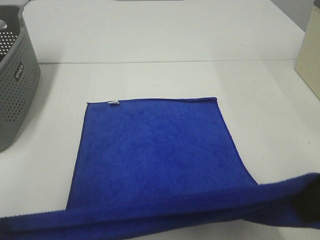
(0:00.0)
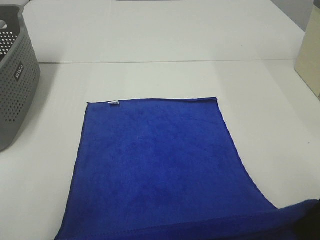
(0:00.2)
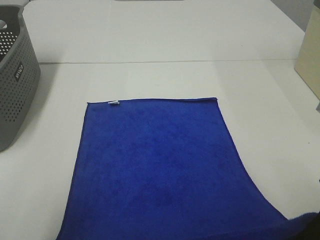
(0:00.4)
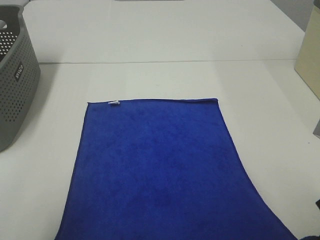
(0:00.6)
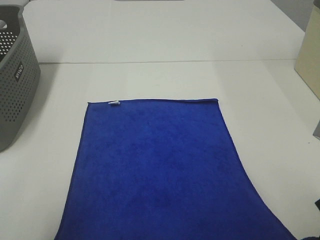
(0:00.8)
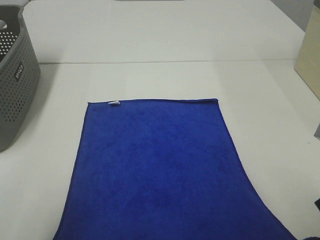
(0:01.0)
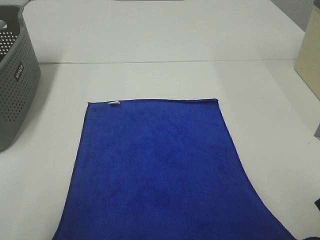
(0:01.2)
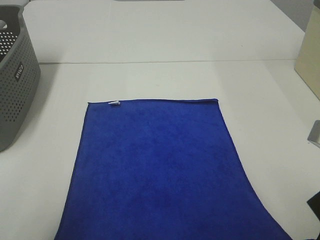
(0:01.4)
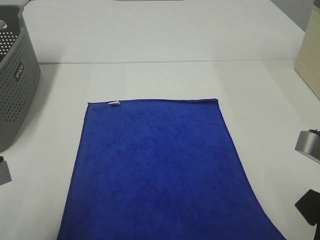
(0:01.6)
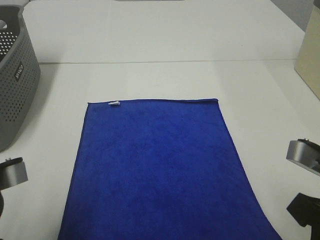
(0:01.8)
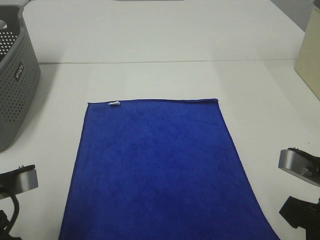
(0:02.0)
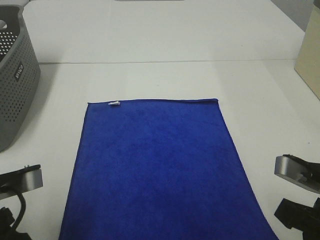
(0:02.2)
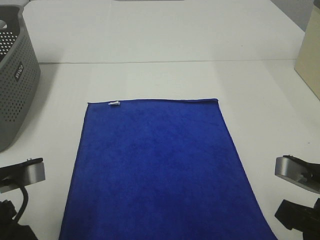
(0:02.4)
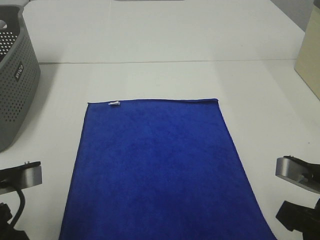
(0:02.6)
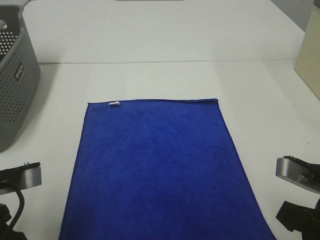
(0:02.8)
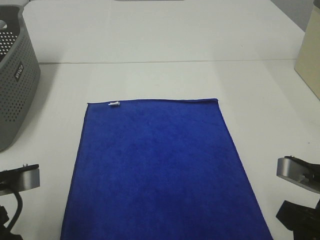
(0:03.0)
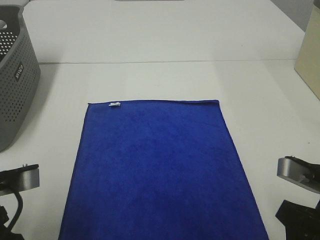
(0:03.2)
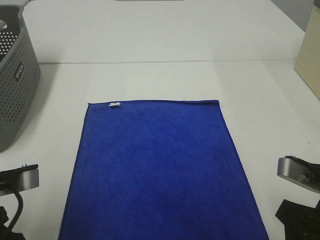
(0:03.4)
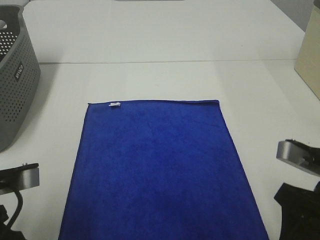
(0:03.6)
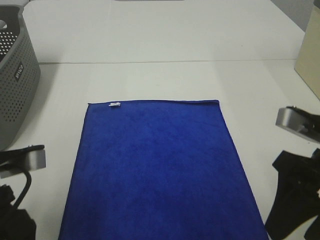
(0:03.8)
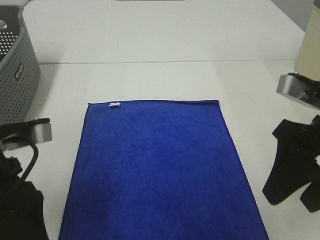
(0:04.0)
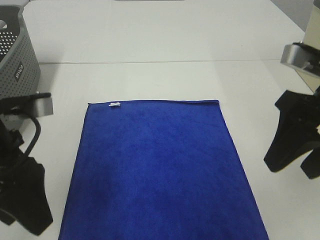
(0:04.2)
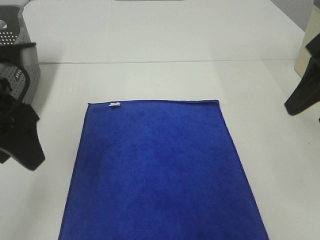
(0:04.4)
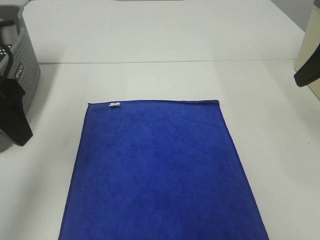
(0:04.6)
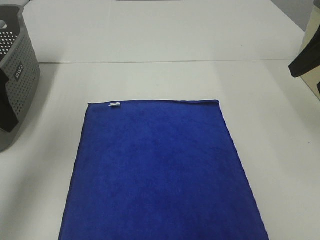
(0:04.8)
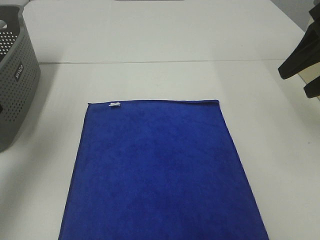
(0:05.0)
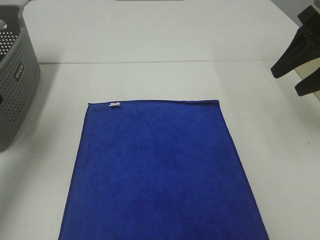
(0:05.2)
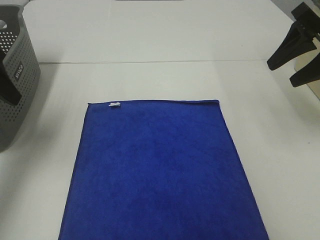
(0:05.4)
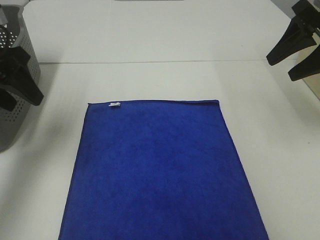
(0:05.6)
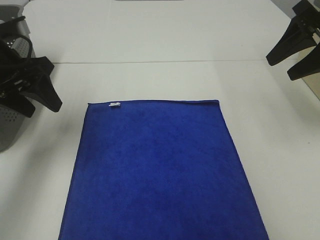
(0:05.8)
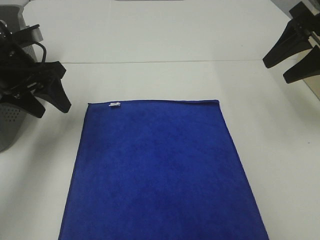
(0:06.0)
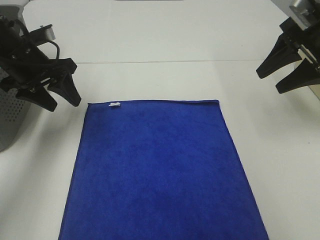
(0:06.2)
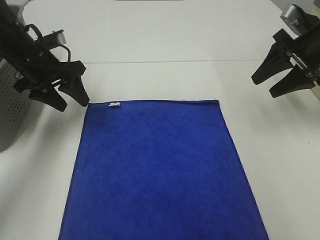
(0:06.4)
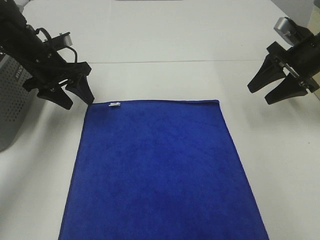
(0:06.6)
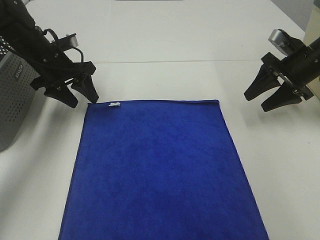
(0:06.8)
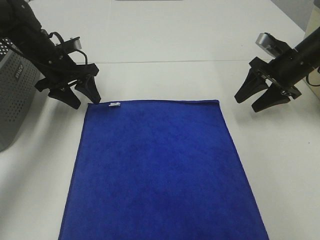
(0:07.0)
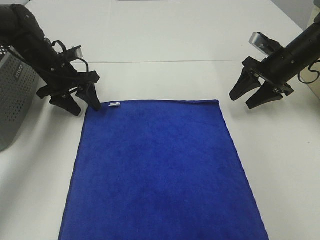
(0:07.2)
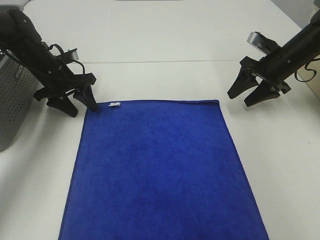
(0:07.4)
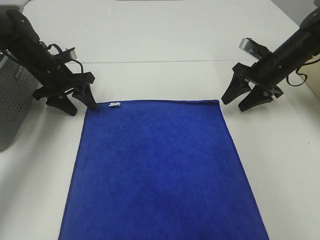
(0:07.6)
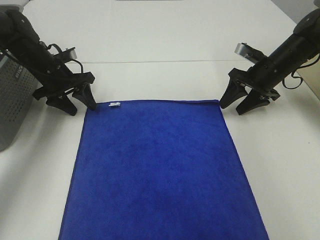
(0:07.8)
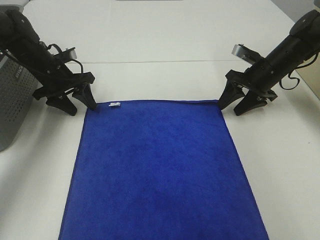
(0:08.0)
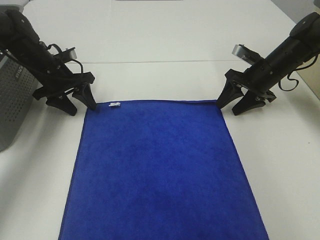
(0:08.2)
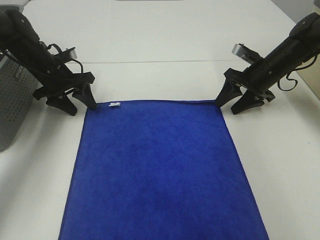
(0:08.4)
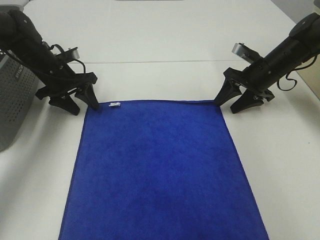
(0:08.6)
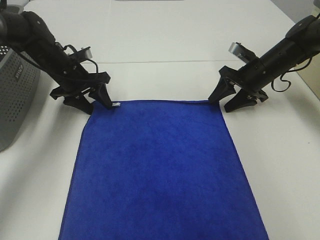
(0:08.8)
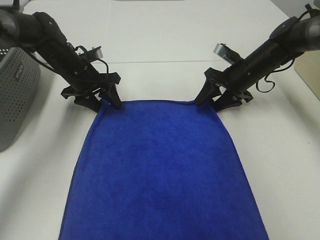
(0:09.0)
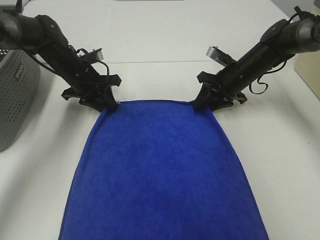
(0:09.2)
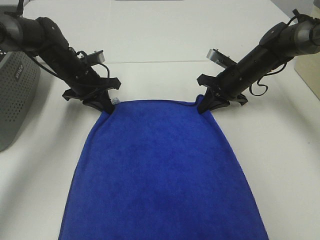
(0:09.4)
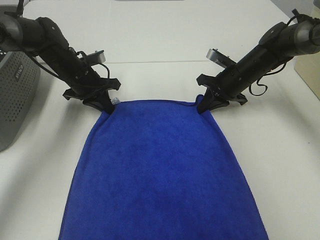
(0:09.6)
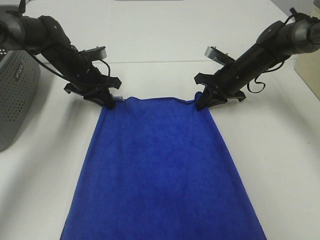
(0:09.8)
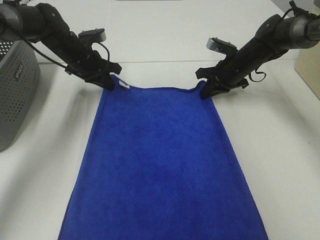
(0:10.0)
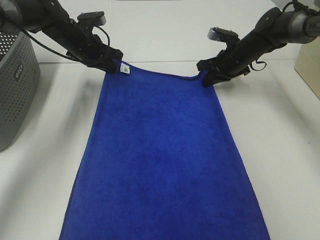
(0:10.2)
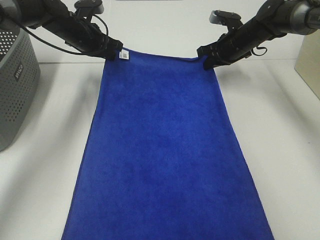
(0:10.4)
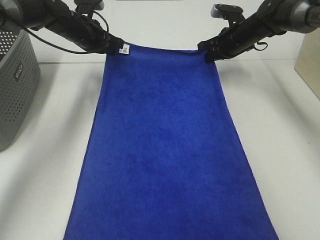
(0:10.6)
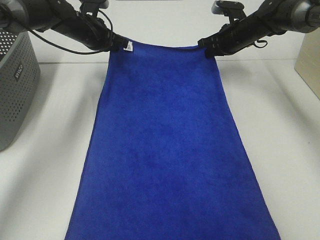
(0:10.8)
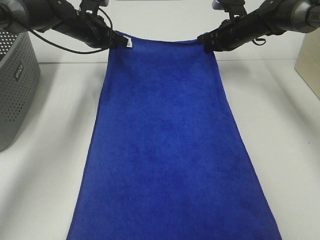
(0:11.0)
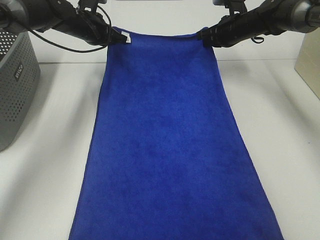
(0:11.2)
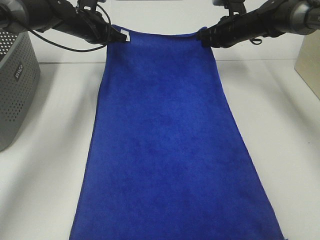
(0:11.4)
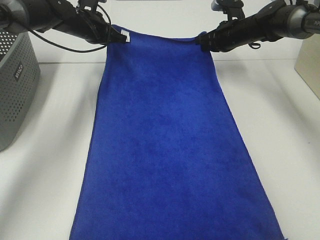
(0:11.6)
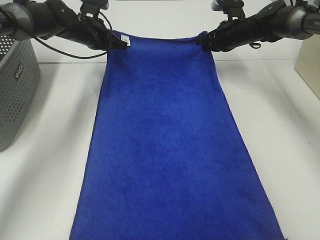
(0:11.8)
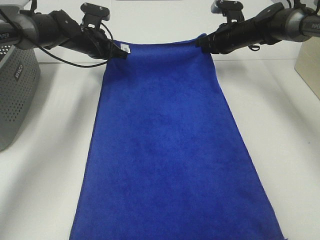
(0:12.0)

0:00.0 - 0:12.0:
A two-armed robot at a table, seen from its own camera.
Task of the whole recording: Remove the towel and place it.
Step, 0:00.0 - 0:06.0: Left hand:adjust the blue towel.
Step, 0:00.0 - 0:06.0: Right hand:adjust the blue towel.
0:00.0 - 0:01.6: The two grippers go roughly 5 cm downward.
0:01.6 - 0:03.0: The left gripper opens, while the right gripper opens up.
0:03.0 - 0:04.4: The left gripper moves forward and upward, about 15 cm, while the right gripper heads upward and forward, covering approximately 15 cm.
0:04.4 - 0:06.0: The right gripper travels forward by approximately 10 cm. The left gripper goes some 15 cm forward and downward.
0:06.0 - 0:07.6: The right gripper shifts roughly 15 cm downward and forward. Meanwhile the left gripper goes approximately 15 cm forward and downward.
0:07.6 - 0:09.0: The right gripper heads to the left, covering some 5 cm, while the left gripper heads to the right, covering some 5 cm.
0:09.0 - 0:10.4: Both grippers move forward and upward, about 10 cm. The right gripper closes up. The left gripper closes its fingers.
0:10.4 - 0:12.0: The grippers move only a little.

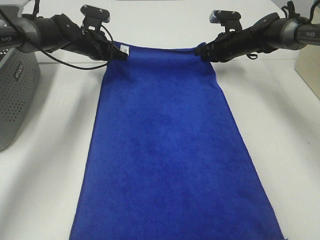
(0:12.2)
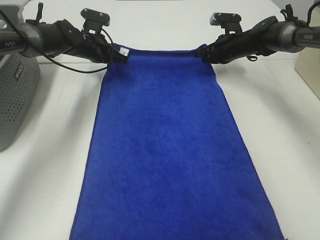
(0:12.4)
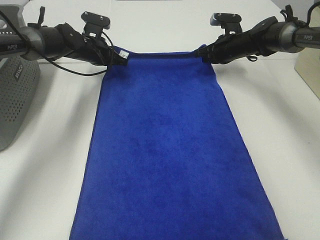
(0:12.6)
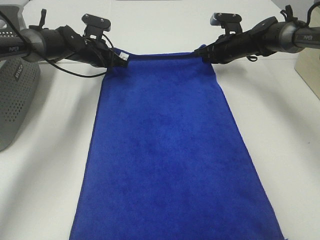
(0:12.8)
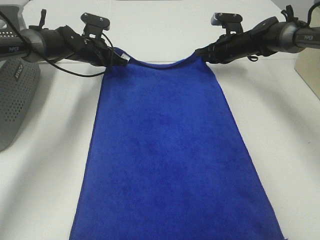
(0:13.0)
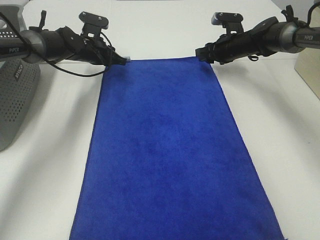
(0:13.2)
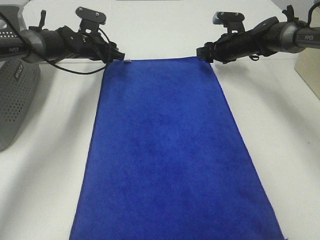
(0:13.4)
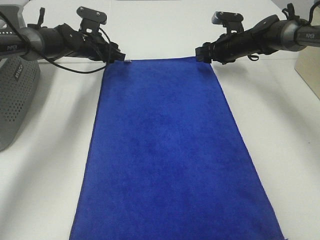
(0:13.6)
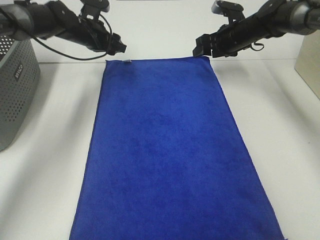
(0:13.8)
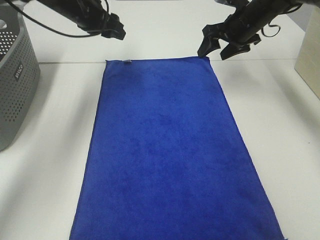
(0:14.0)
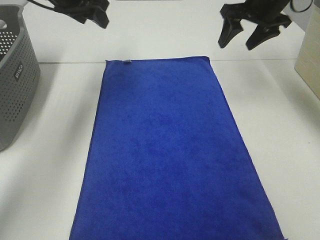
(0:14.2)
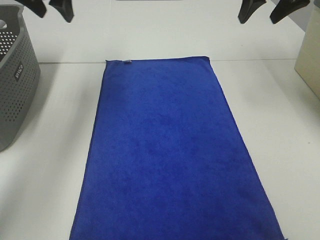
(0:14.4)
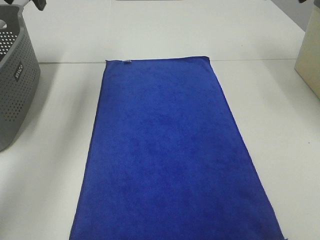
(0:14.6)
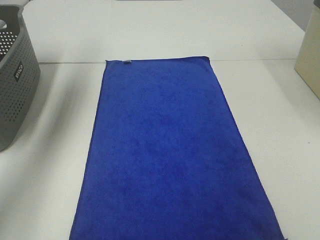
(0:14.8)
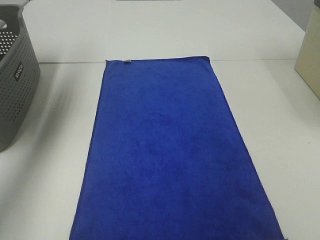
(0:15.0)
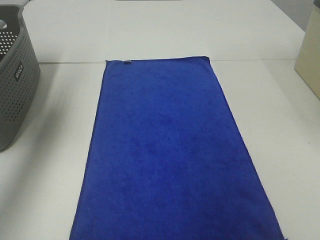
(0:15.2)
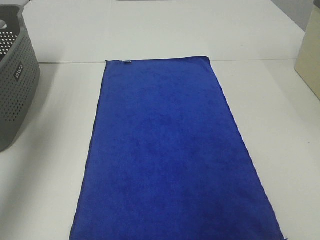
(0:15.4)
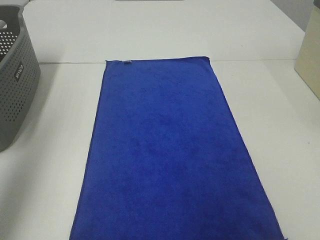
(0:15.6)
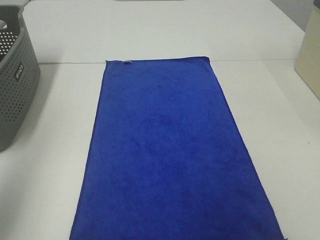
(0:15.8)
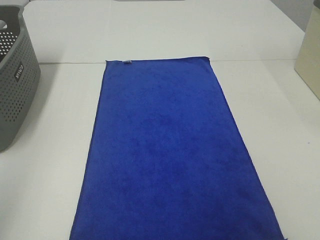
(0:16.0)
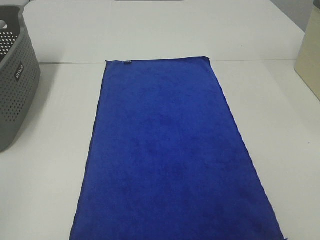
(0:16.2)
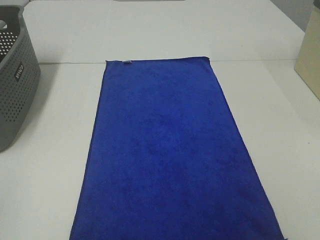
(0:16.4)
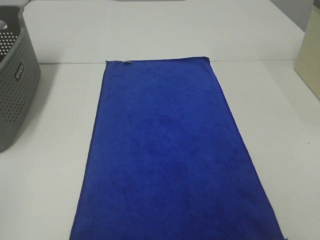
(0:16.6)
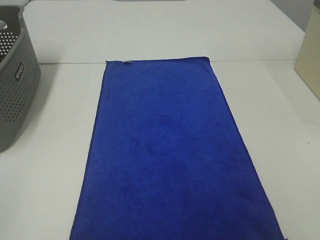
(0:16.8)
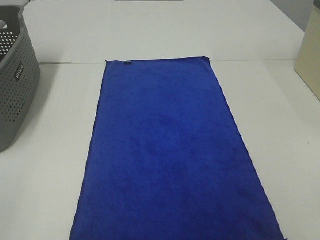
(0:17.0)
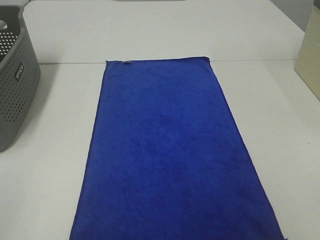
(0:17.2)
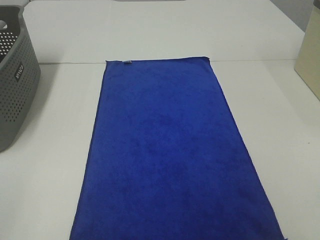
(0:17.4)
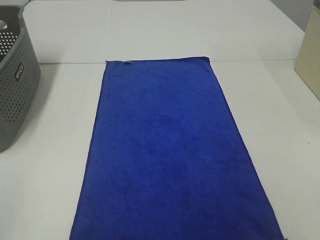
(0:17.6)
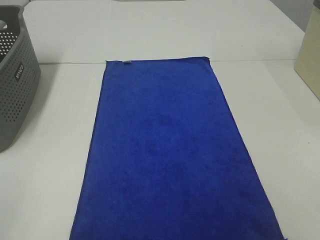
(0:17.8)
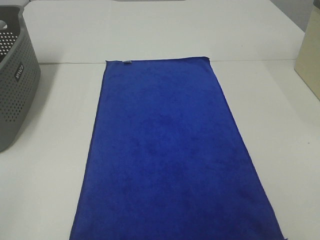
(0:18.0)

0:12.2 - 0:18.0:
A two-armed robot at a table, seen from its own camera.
Task of the whole recording: Remove the towel and place it.
0:12.2 - 0:13.6: The right gripper opens; the left gripper opens its fingers.
0:13.6 - 0:15.0: The right gripper is displaced upward and backward by about 35 cm, while the left gripper goes some 35 cm upward, backward and to the left.
0:15.0 - 0:16.6: The left gripper goes roughly 40 cm backward.

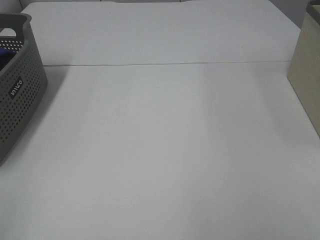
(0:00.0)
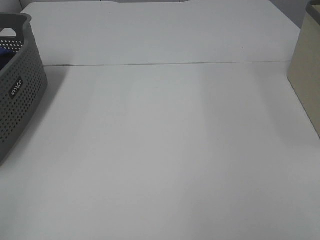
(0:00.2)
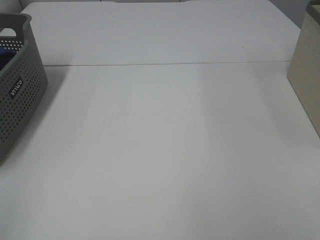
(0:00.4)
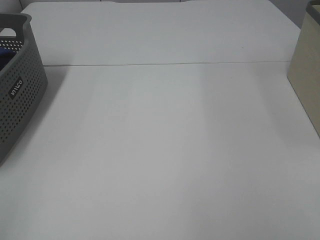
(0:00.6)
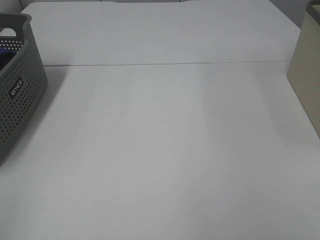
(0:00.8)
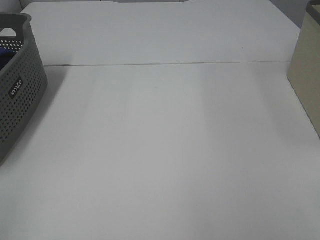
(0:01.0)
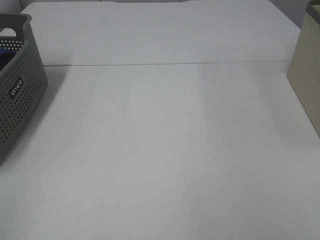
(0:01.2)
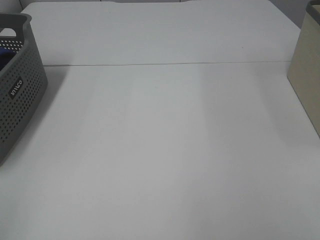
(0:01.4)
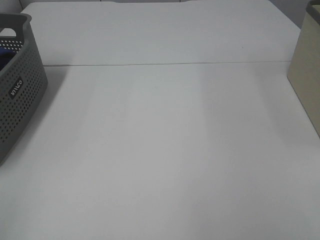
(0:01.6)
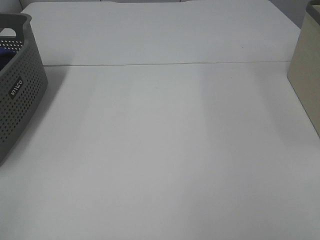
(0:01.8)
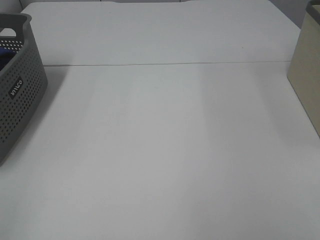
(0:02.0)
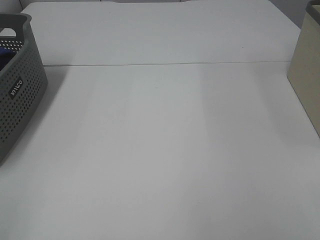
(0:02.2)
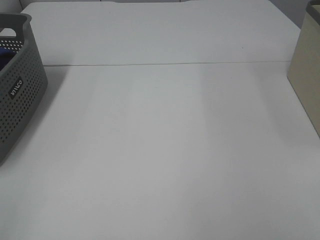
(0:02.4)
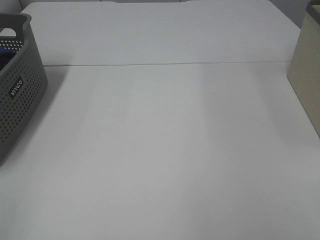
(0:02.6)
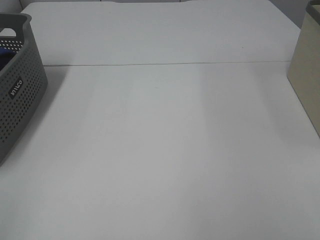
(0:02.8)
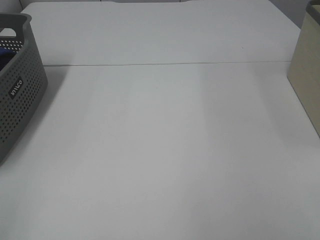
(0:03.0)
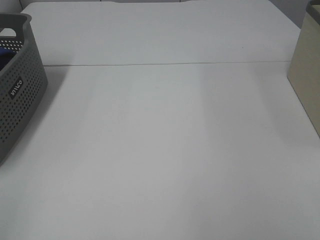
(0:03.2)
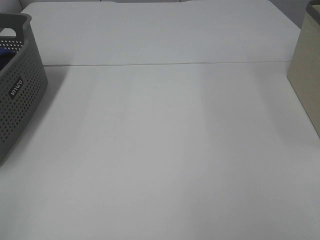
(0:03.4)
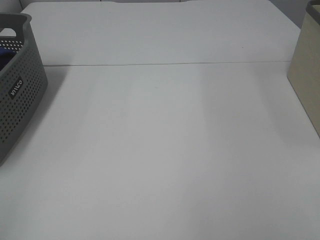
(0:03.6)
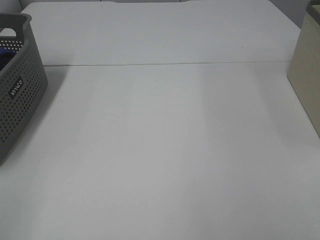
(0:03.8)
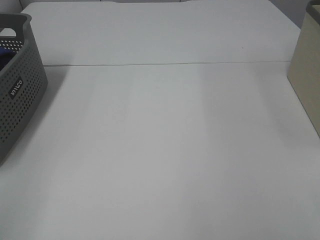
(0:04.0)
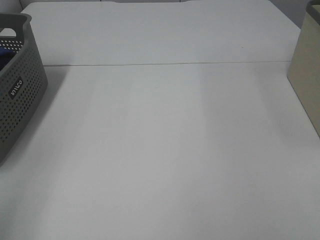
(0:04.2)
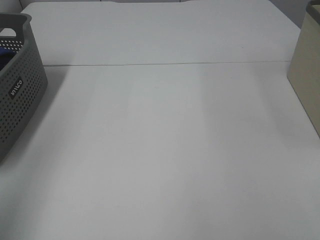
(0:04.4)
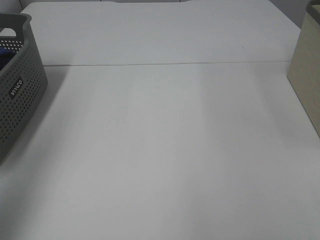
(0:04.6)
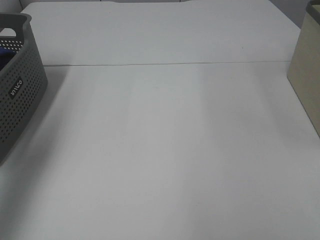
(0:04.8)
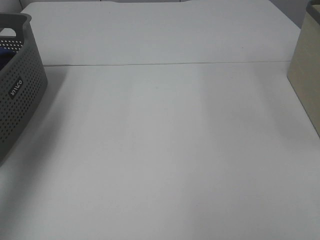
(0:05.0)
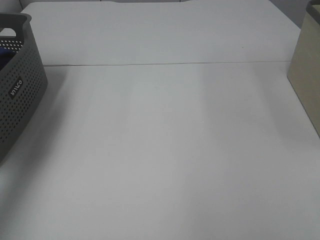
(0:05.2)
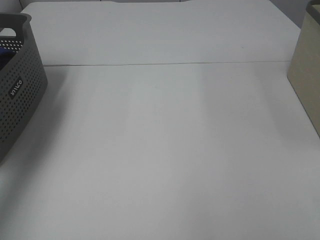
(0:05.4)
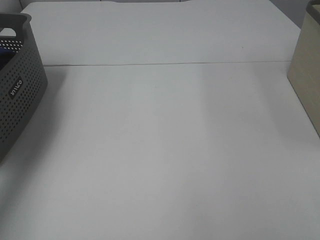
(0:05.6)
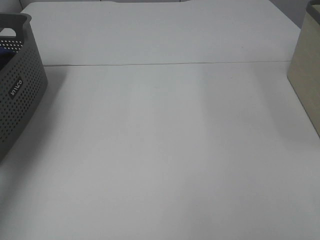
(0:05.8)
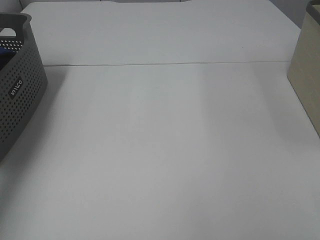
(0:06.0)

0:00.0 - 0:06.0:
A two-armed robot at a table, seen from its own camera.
Task of the whole recording: Remove the towel and place it.
0:00.0 - 0:03.0: Both grippers stay about where they are.
0:03.0 - 0:04.4: The left gripper heads forward and upward, covering about 15 cm.
0:04.4 - 0:06.0: The left gripper heads forward, covering roughly 30 cm.
